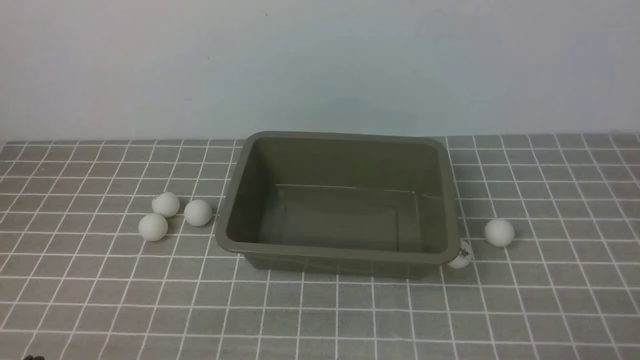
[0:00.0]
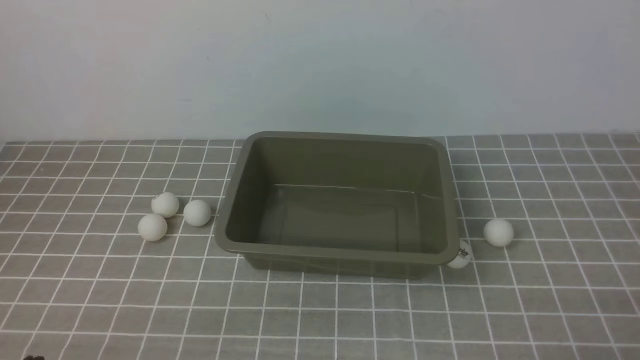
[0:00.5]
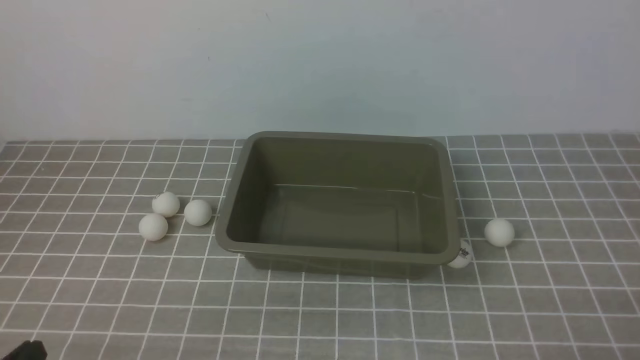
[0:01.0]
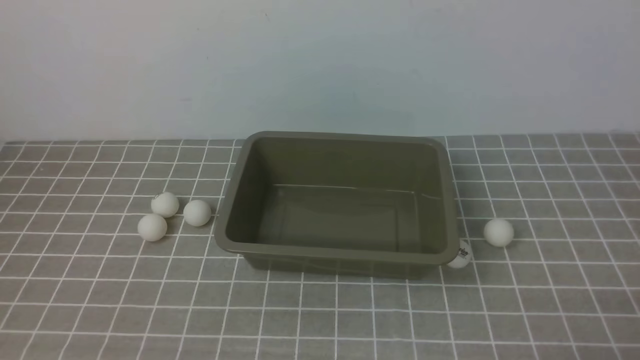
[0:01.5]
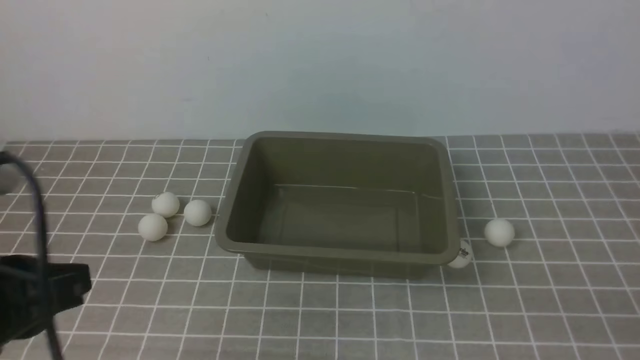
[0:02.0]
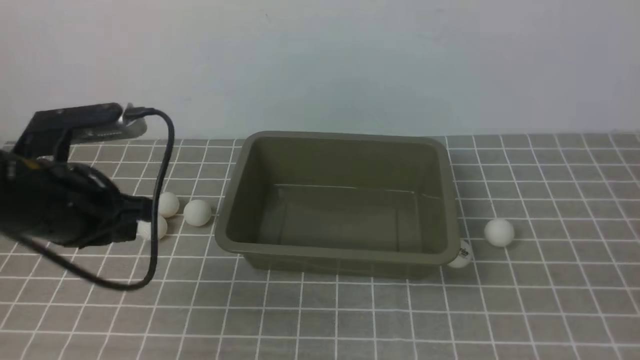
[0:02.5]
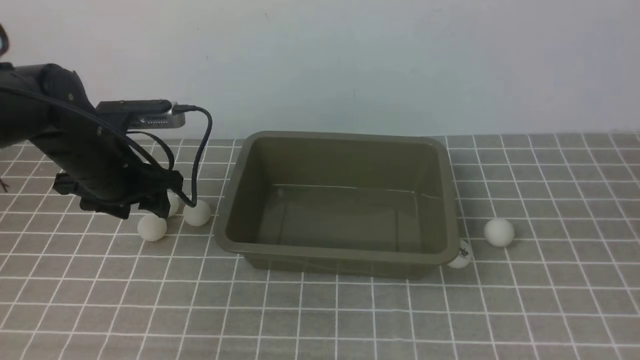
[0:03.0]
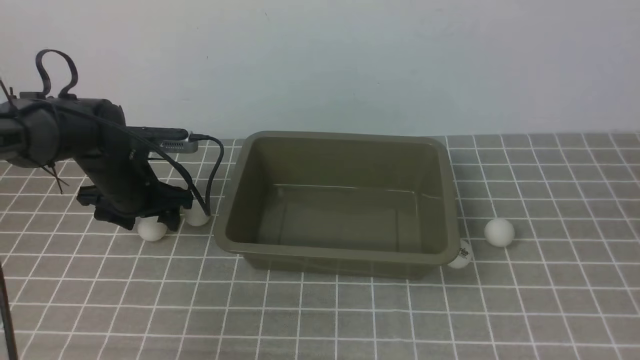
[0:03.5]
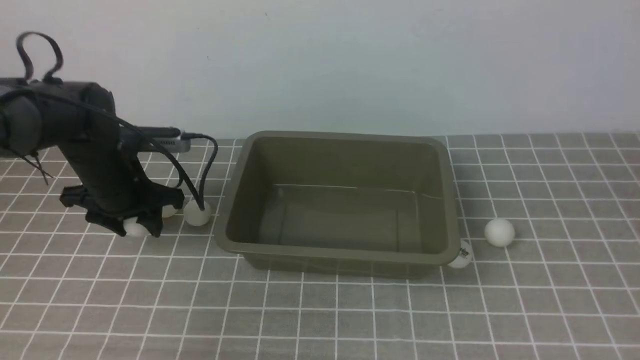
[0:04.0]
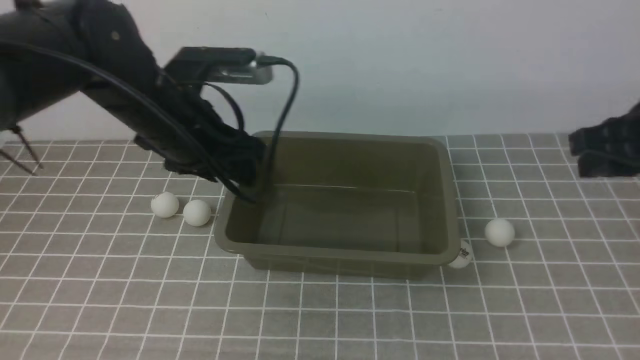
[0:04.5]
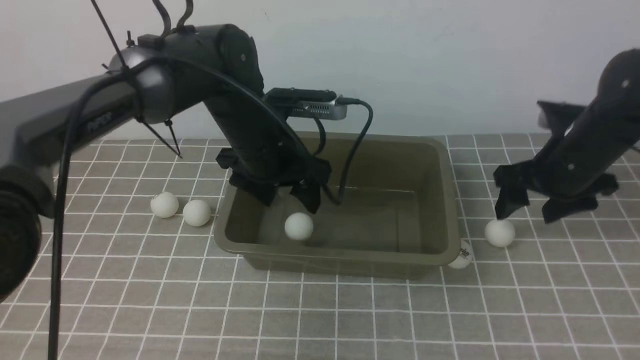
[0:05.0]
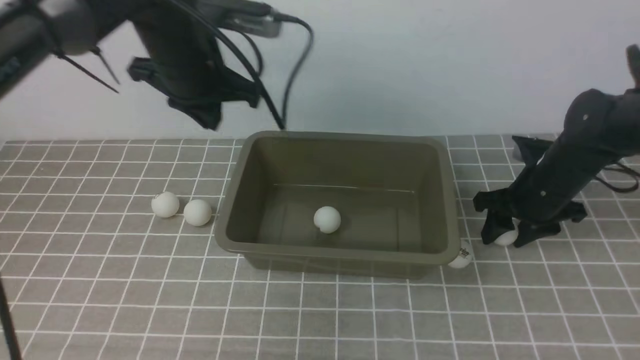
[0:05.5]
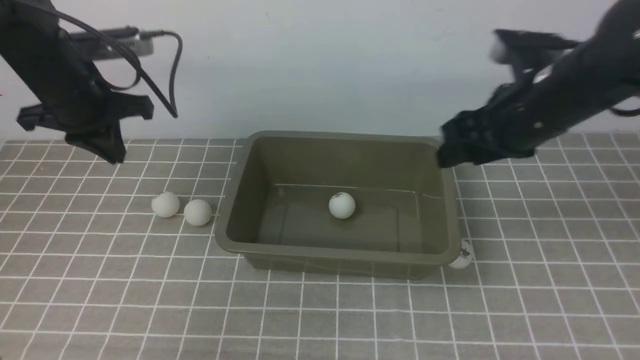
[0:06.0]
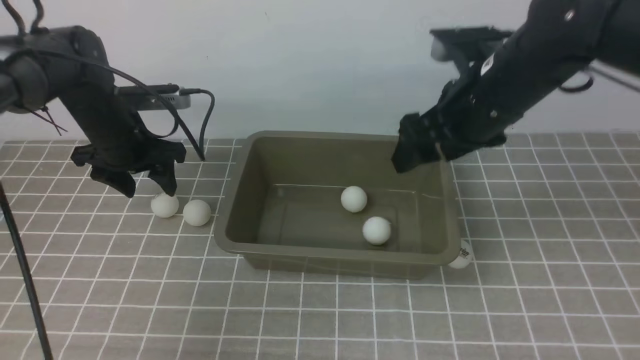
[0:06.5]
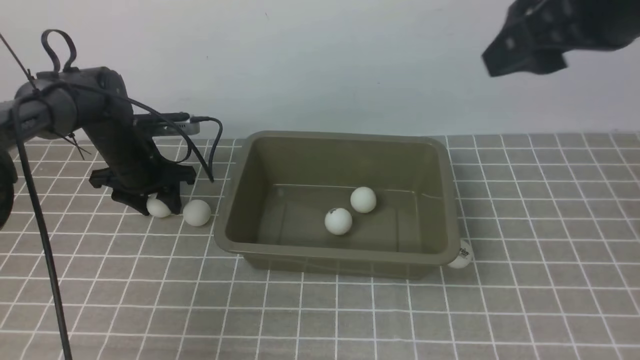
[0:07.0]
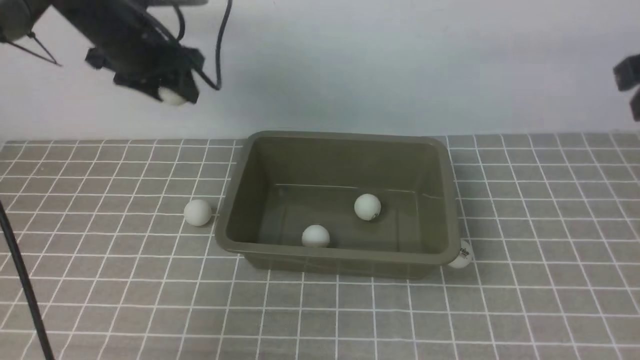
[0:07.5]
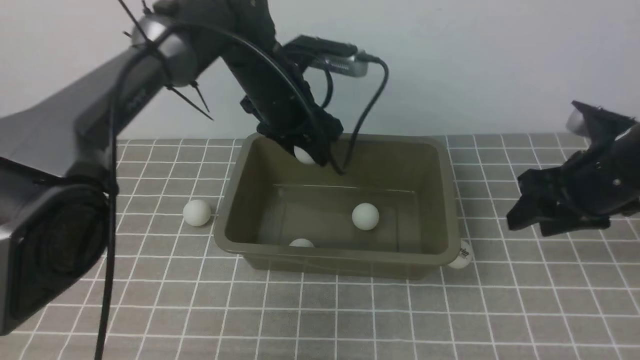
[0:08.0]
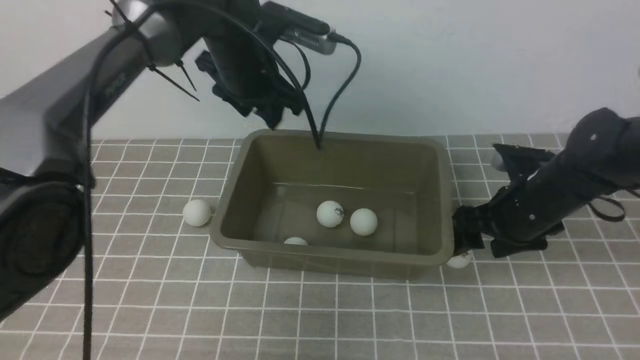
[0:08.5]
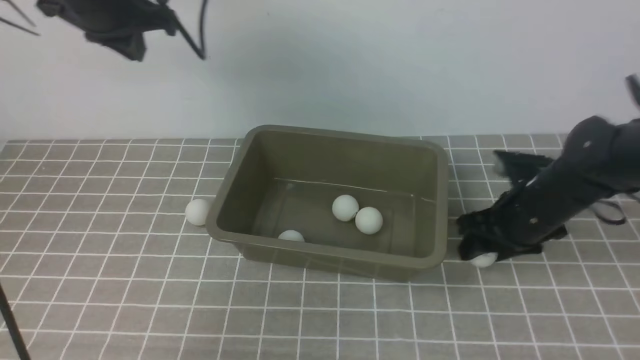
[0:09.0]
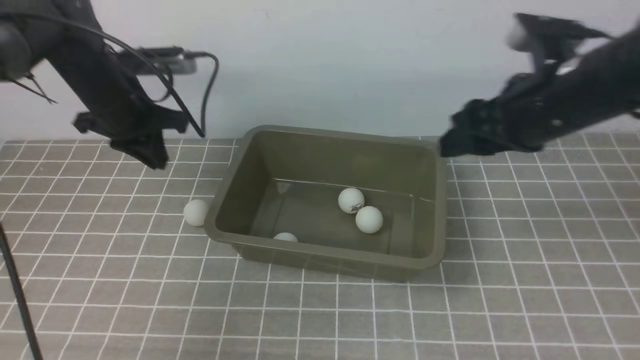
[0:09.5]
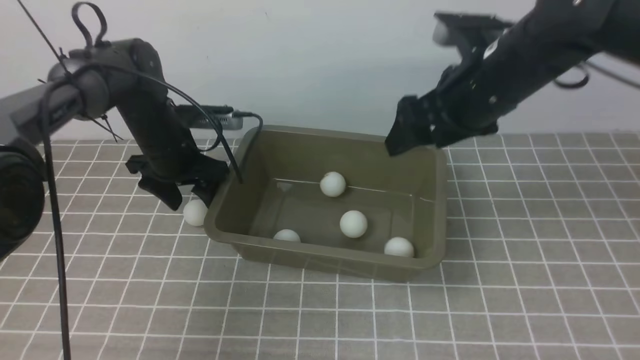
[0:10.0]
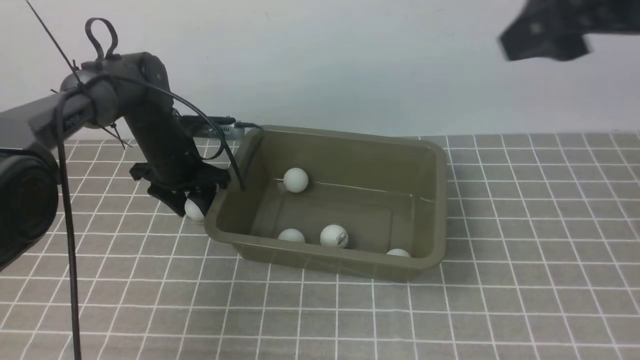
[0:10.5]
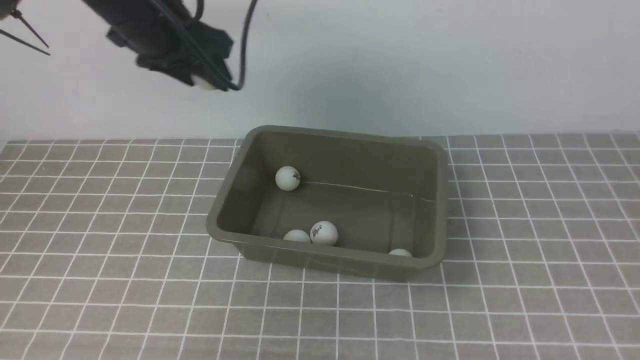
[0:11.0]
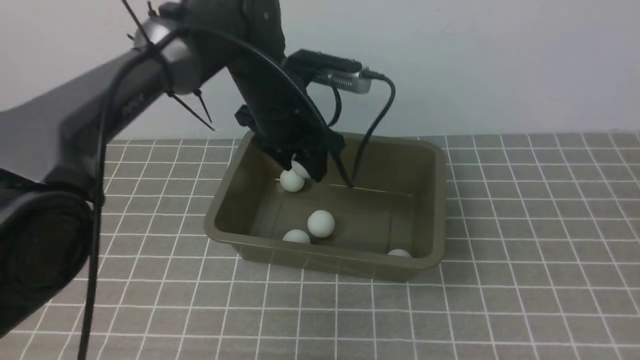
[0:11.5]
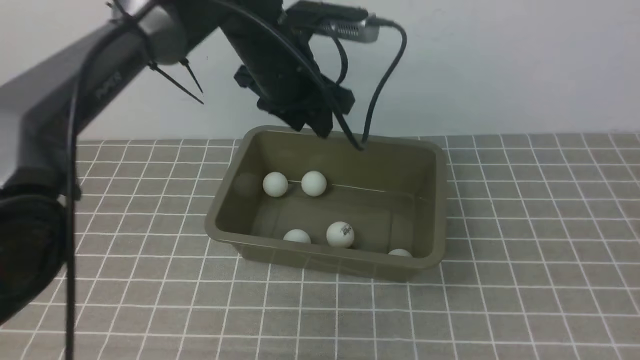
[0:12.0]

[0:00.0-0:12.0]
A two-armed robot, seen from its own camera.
Step, 0:00.0 to 0:04.0: use the left arm to clamp the table tennis ball closest to it.
Step, 0:04.5 to 0:05.5: use the right arm to clamp the table tennis ball closest to it.
Step, 0:07.5 to 0:08.0: use the left arm to put the table tennis ball into the box.
Step, 0:08.5 to 0:09.0: use the right arm to clamp the table tennis ball closest to it.
Step, 0:10.0 to 0:10.5: use the left arm to clamp the table tennis ball closest to it.
Step, 0:11.0 to 0:11.5: use the left arm to put the table tennis ball into the box.
0:00.0 to 0:02.0: The left gripper heads upward and forward, covering some 15 cm.
0:02.0 to 0:04.0: The right gripper heads upward and forward, covering some 20 cm. The left gripper goes about 30 cm forward and downward, and opens.
0:04.0 to 0:06.0: The left gripper shifts roughly 10 cm upward, moves roughly 15 cm to the right and comes back, and closes. Meanwhile the right gripper moves forward, downward and to the left, about 25 cm, and opens its fingers.
0:06.0 to 0:08.0: The left gripper moves to the right, roughly 20 cm, and opens up. The right gripper goes some 5 cm to the right, and goes upward and returns, about 15 cm each way.
0:08.0 to 0:10.0: The right gripper shifts roughly 15 cm to the left and upward, while the left gripper moves to the left and downward, roughly 15 cm, and closes, then reopens.
0:10.0 to 0:12.0: The left gripper swings up and down, some 15 cm each way, with 2 reversals, and closes its fingers, while the right gripper heads backward and to the right, covering roughly 40 cm, and closes up.

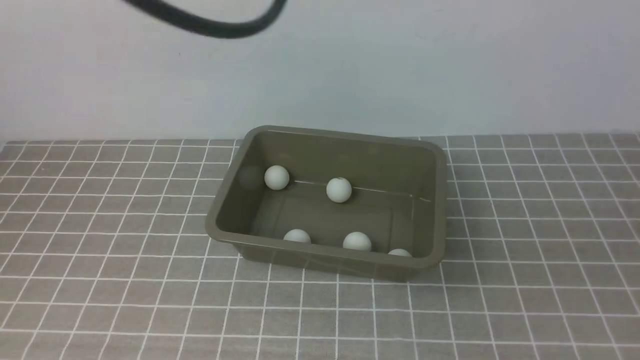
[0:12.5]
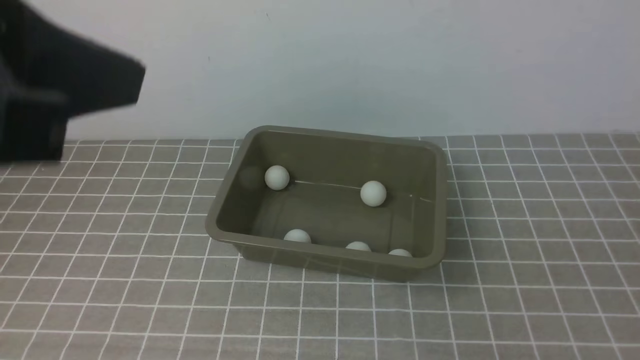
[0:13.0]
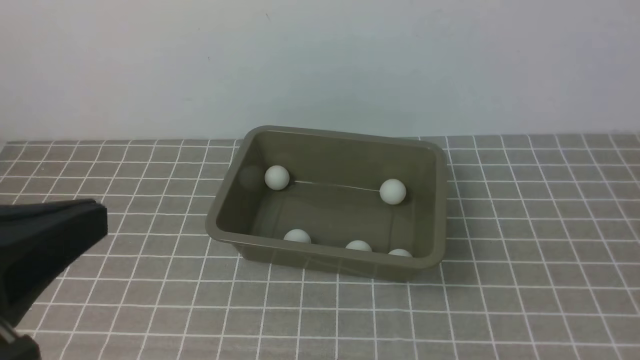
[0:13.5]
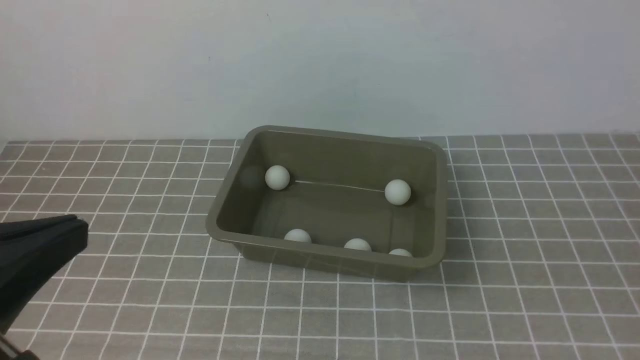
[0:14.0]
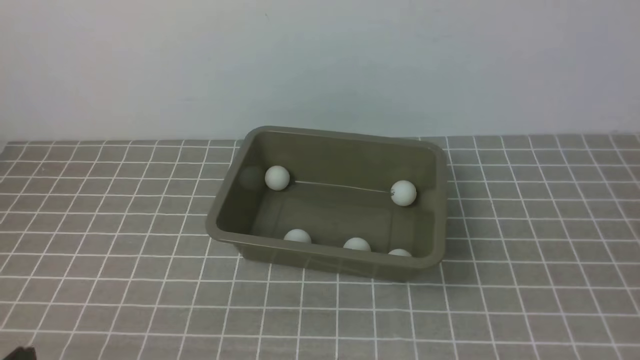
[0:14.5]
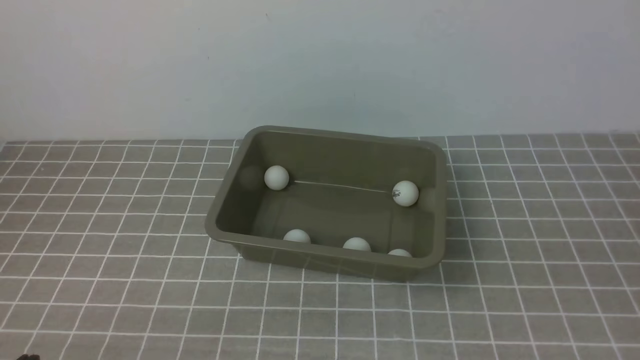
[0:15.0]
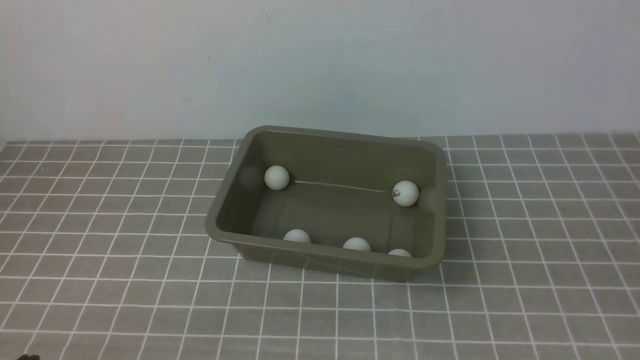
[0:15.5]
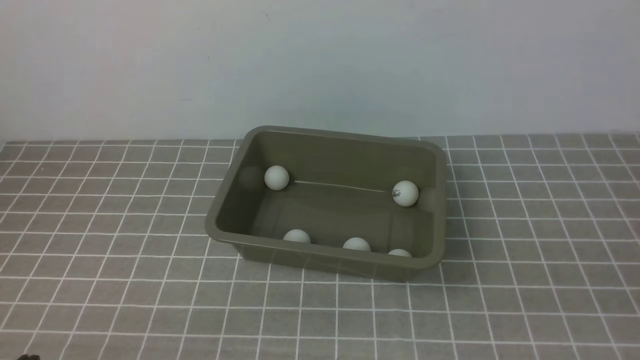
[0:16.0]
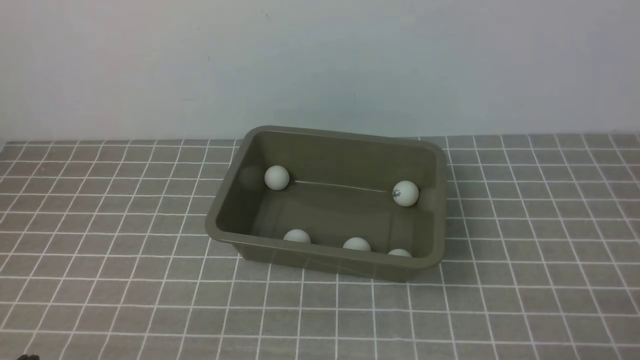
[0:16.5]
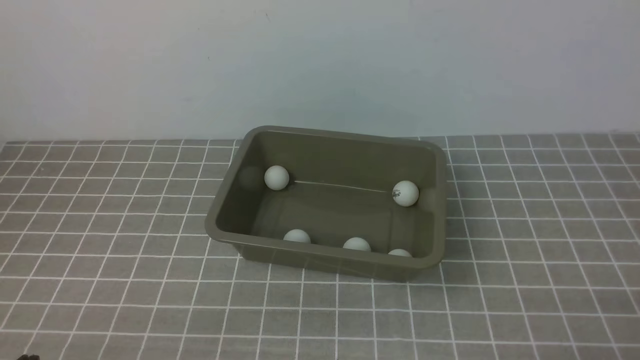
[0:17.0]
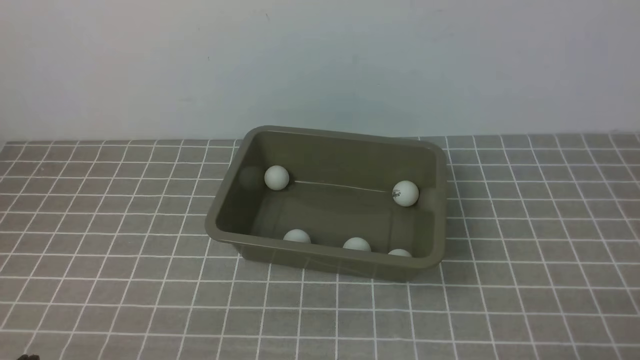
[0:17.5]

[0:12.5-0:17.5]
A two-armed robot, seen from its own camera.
0:12.5 to 0:15.0: The left gripper travels downward, backward and to the left by about 40 cm.
